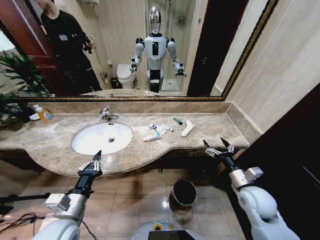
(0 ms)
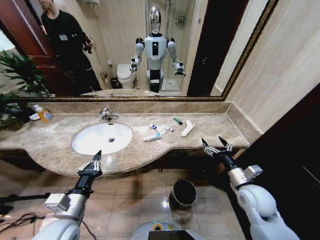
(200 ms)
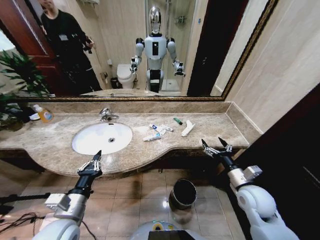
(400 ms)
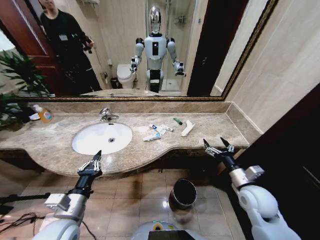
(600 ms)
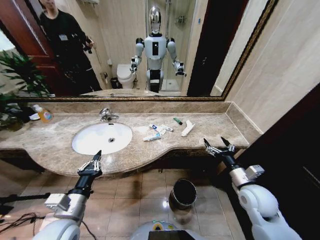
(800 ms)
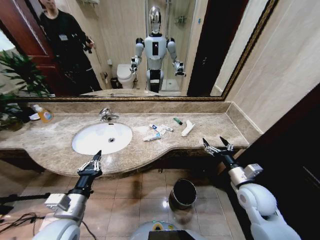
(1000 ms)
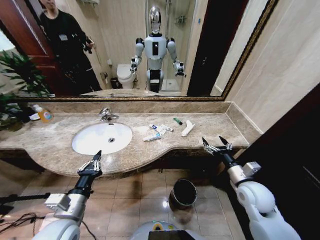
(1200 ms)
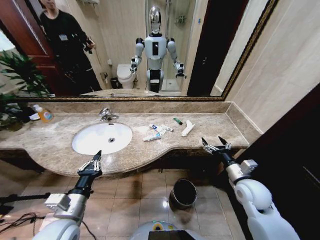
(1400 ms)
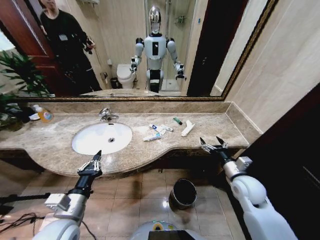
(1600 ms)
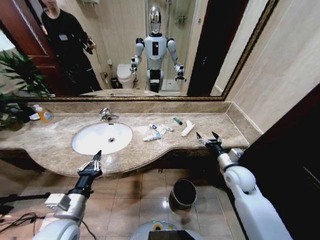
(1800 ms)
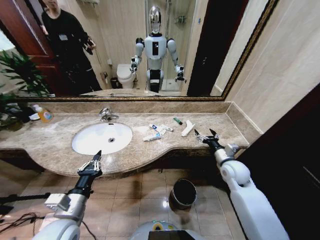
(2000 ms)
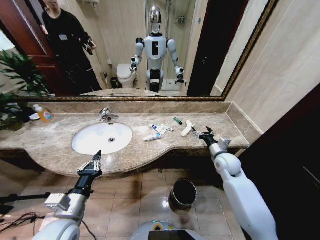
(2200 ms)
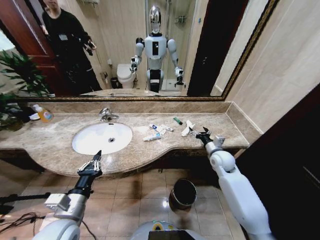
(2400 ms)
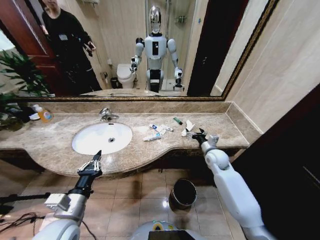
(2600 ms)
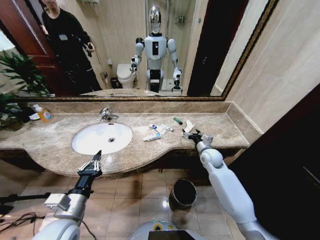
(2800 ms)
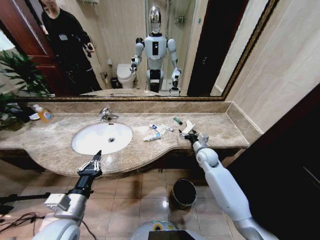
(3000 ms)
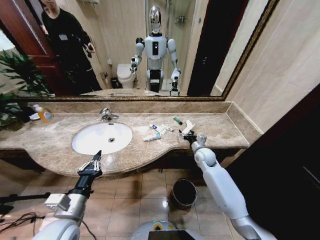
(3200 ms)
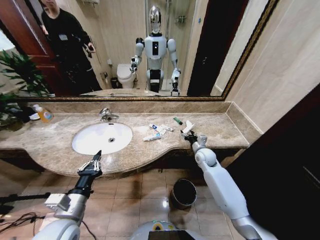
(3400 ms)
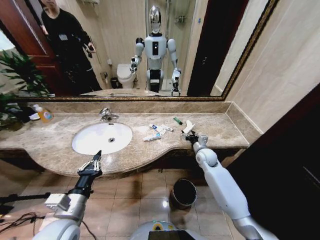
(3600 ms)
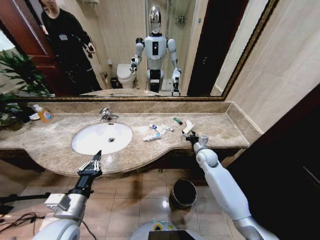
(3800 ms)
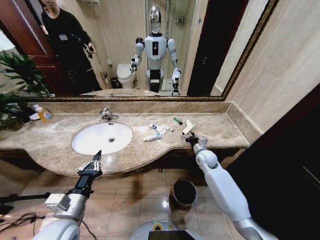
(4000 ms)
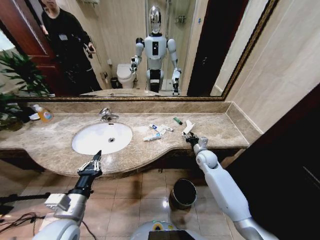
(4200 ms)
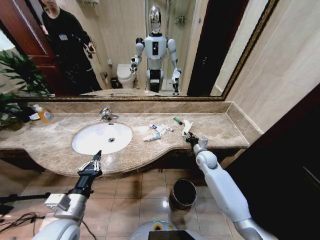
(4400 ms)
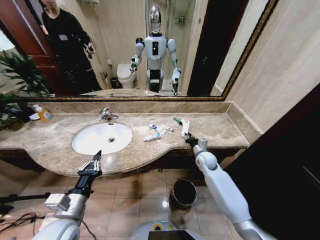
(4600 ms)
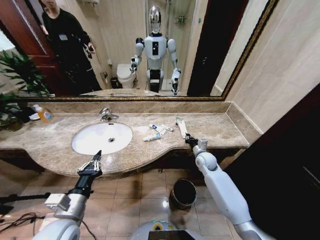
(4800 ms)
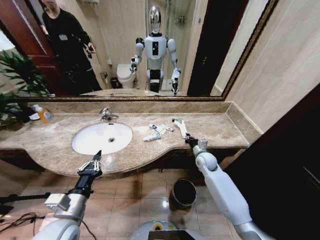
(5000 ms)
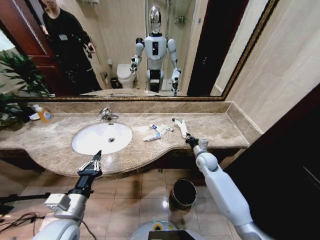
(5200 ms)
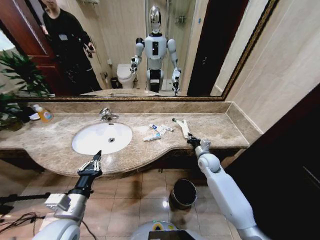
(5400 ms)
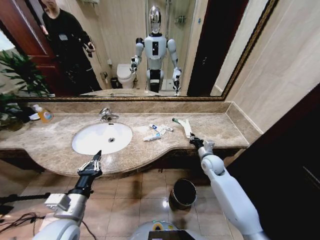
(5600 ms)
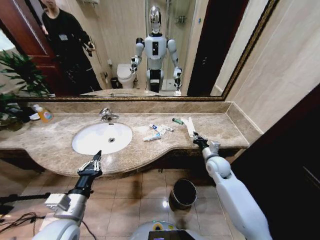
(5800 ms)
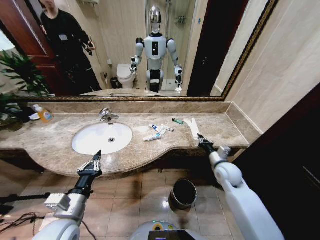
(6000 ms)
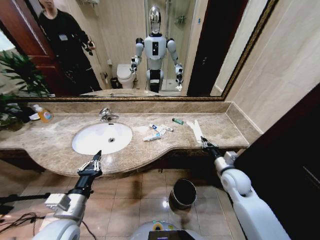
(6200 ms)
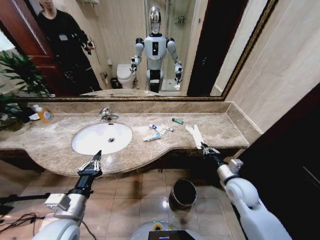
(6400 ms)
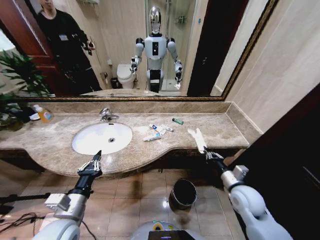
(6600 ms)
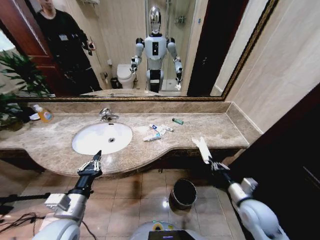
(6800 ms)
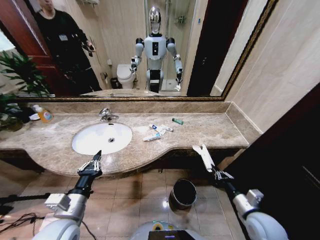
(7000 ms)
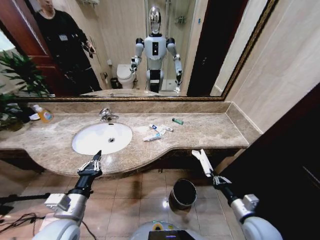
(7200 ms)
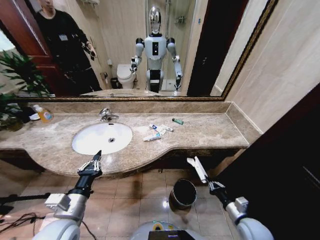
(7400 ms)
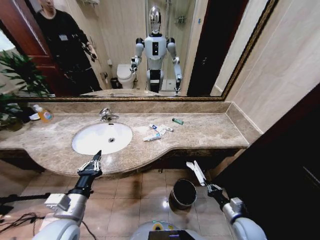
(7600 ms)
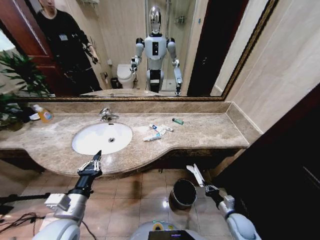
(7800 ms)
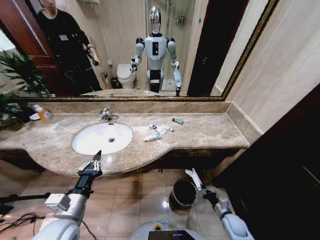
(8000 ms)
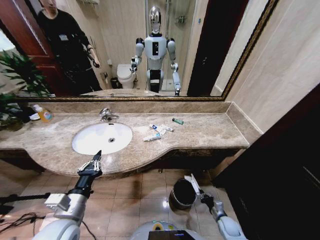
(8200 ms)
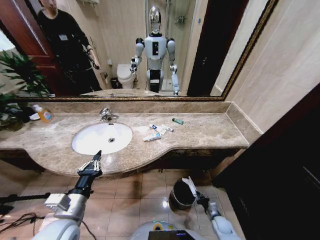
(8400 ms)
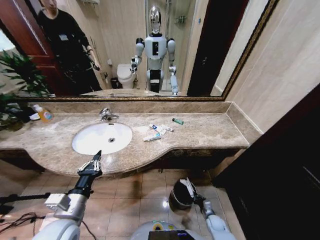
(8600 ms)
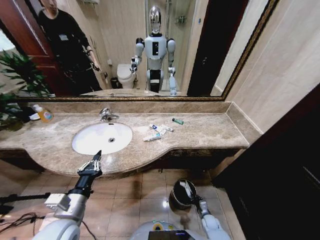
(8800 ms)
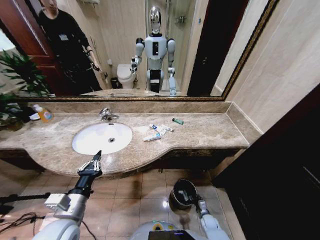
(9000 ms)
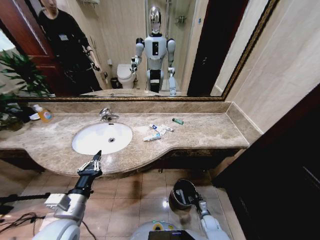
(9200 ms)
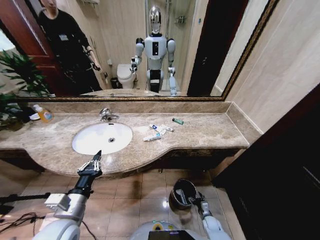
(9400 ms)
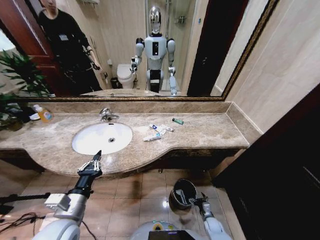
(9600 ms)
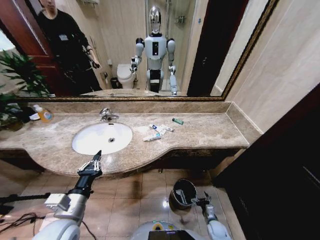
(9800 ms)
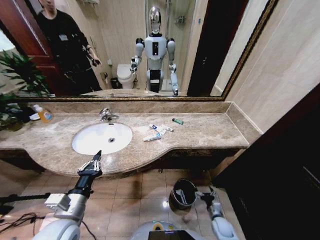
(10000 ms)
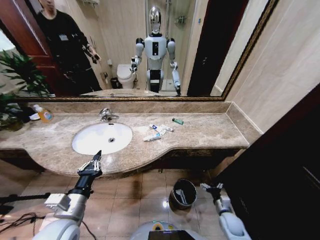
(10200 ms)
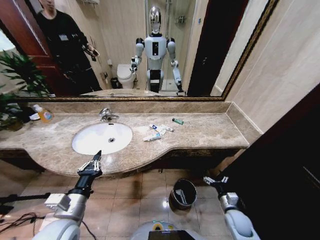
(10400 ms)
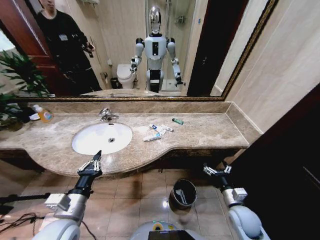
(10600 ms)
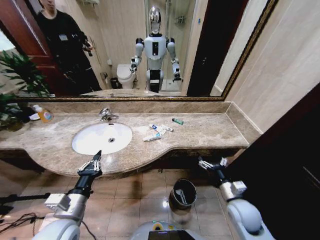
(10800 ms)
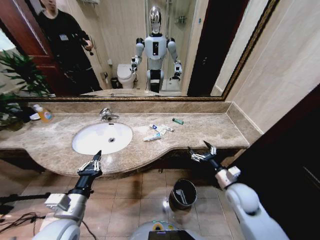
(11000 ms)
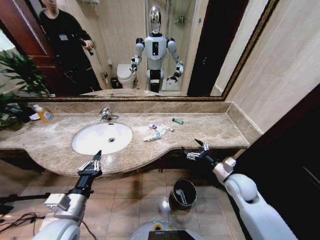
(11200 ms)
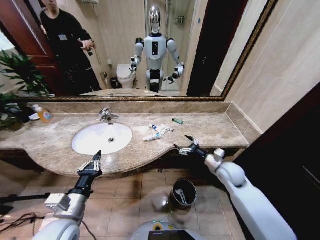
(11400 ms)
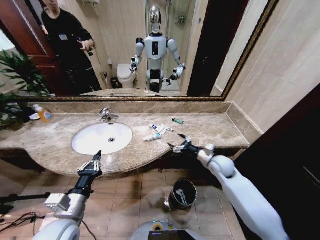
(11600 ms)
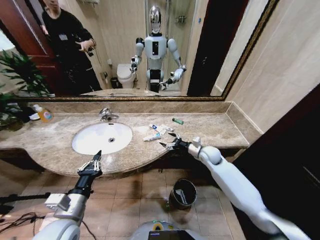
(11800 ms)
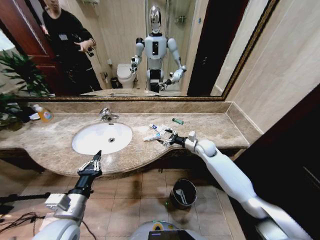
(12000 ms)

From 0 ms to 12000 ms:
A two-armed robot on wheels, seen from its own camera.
Task of the whole recording: Pick up the trash from the sink and place it in the trash bin.
From 1600 ms to 3000 ms: The right gripper heads forward and to the left, covering about 20 cm.
From 3000 ms to 4400 ms: The right gripper closes its fingers.
From 4400 ms to 6000 ms: The right gripper shifts approximately 10 cm backward and to the right, and closes its fingers.
From 6000 ms to 7600 ms: The right gripper shifts about 25 cm backward and downward.
From 7600 ms to 9000 ms: The right gripper is displaced downward by approximately 20 cm.
From 9000 ms to 10400 ms: The right gripper travels upward by roughly 20 cm, and opens its fingers.
From 10400 ms to 12000 ms: The right gripper goes approximately 30 cm forward and upward.

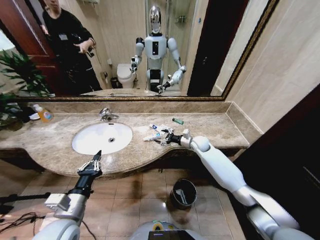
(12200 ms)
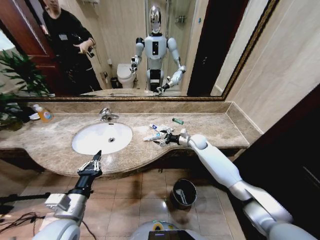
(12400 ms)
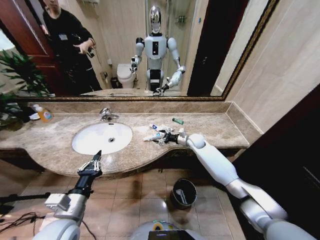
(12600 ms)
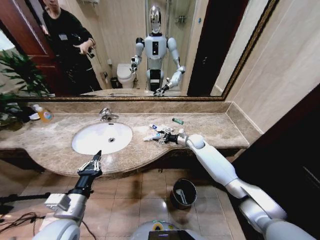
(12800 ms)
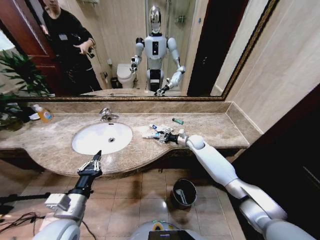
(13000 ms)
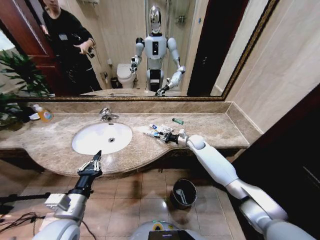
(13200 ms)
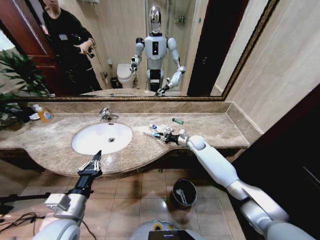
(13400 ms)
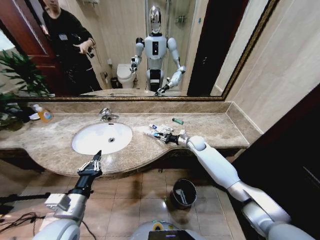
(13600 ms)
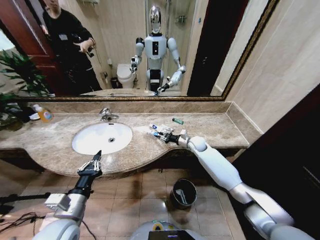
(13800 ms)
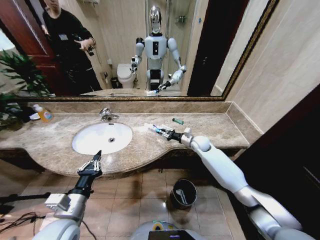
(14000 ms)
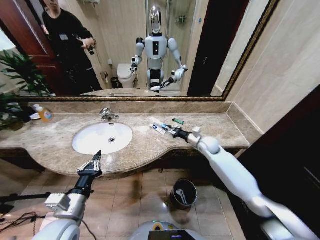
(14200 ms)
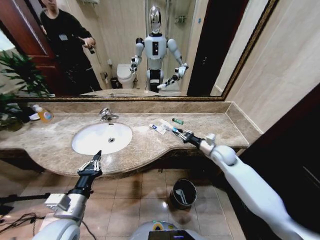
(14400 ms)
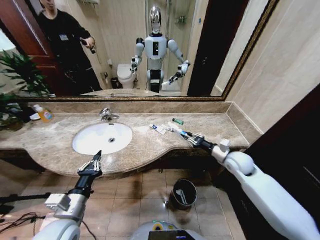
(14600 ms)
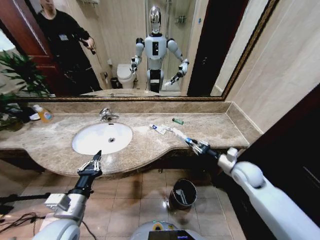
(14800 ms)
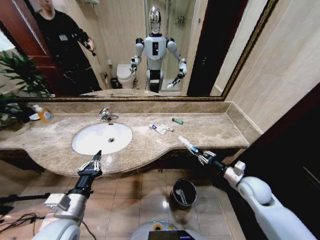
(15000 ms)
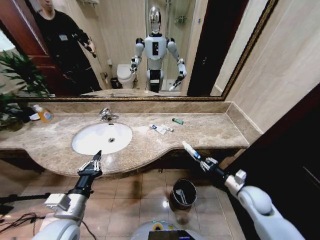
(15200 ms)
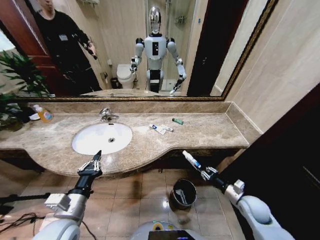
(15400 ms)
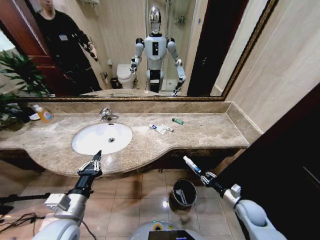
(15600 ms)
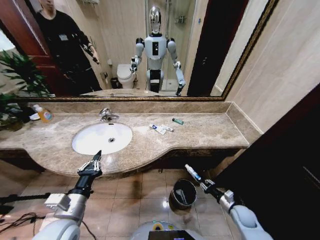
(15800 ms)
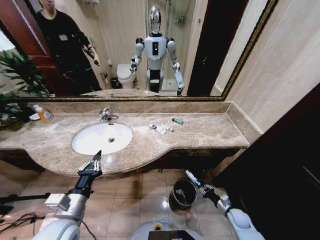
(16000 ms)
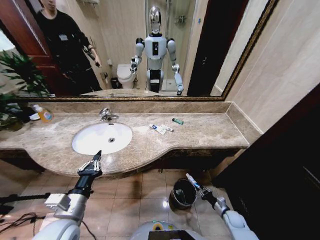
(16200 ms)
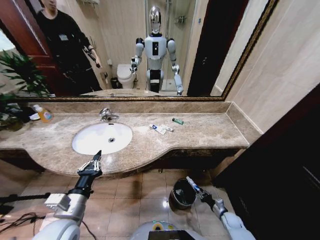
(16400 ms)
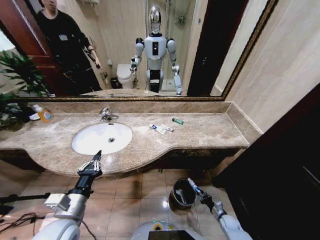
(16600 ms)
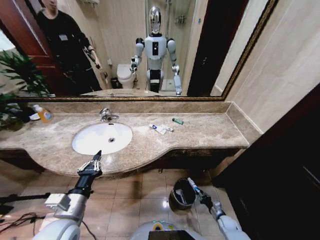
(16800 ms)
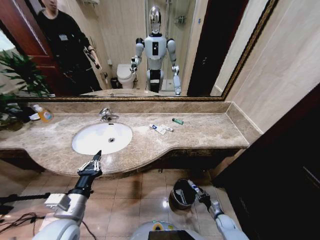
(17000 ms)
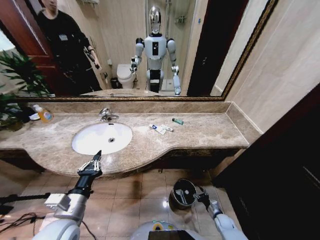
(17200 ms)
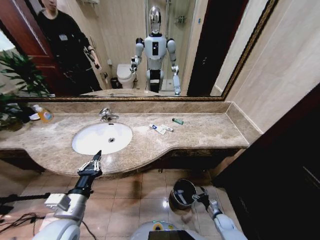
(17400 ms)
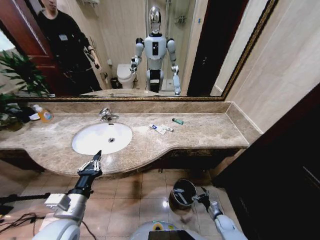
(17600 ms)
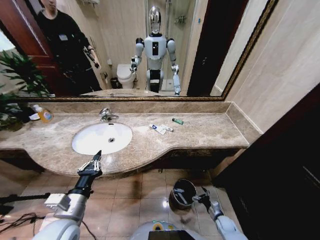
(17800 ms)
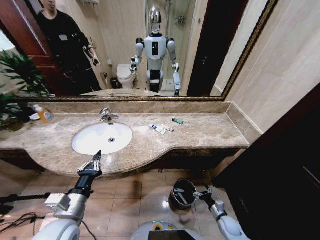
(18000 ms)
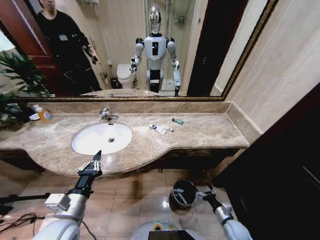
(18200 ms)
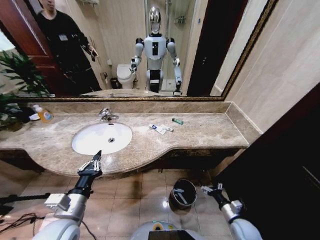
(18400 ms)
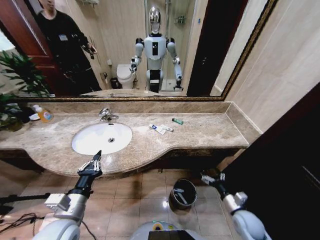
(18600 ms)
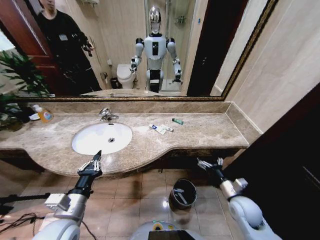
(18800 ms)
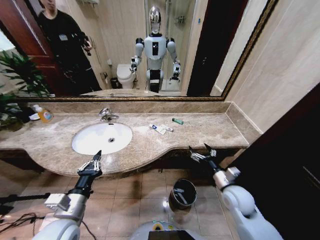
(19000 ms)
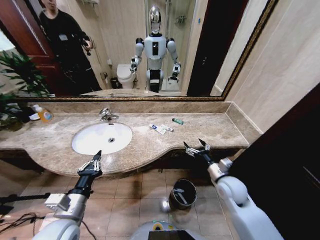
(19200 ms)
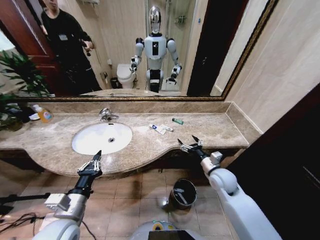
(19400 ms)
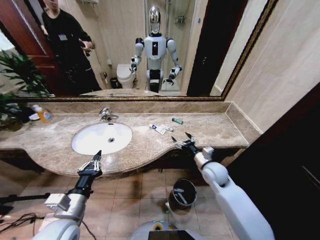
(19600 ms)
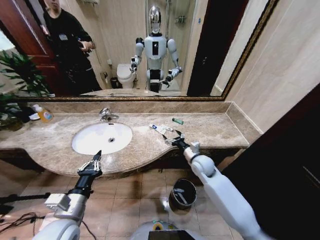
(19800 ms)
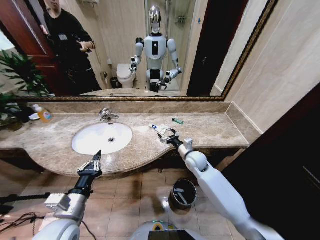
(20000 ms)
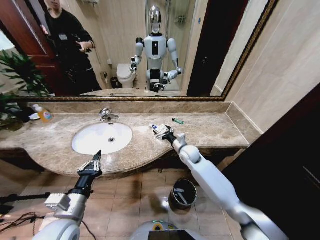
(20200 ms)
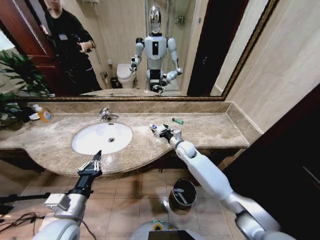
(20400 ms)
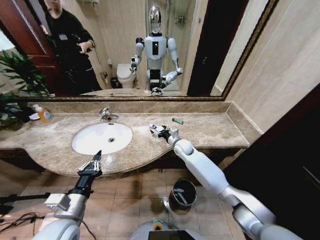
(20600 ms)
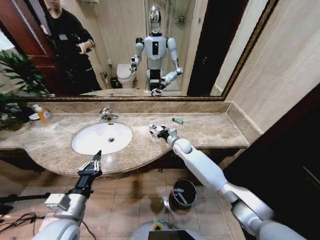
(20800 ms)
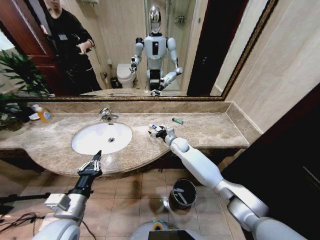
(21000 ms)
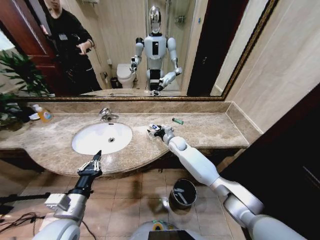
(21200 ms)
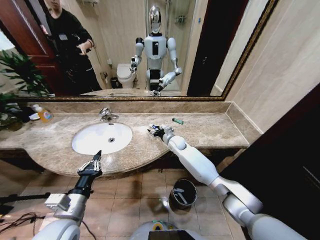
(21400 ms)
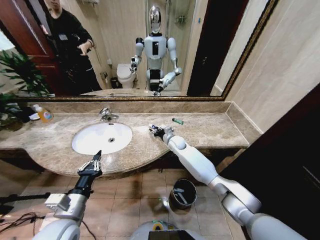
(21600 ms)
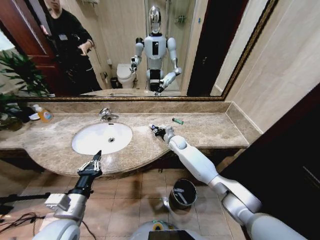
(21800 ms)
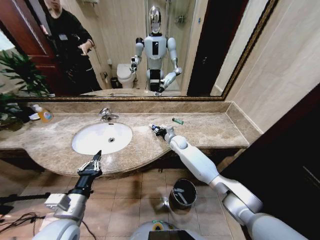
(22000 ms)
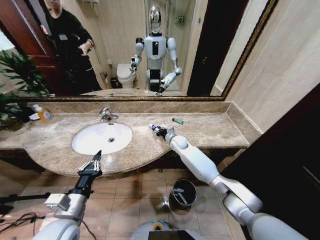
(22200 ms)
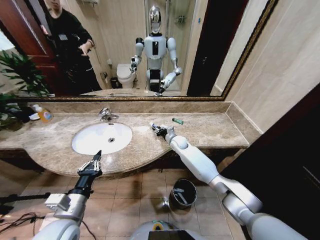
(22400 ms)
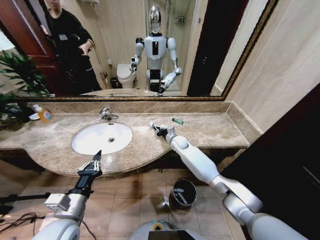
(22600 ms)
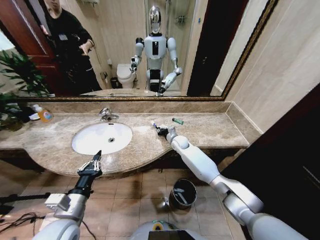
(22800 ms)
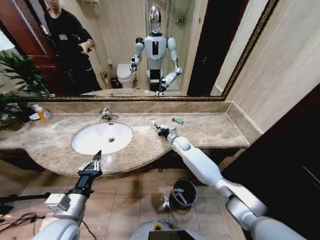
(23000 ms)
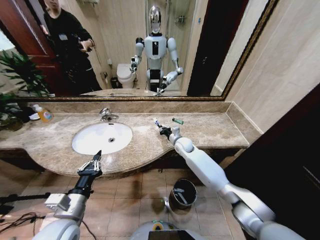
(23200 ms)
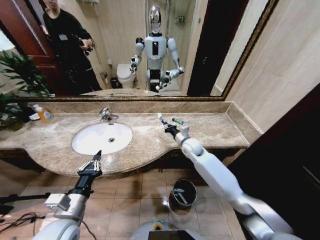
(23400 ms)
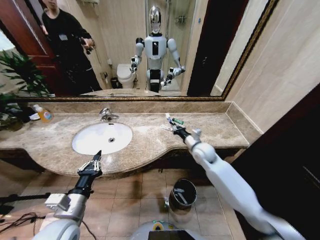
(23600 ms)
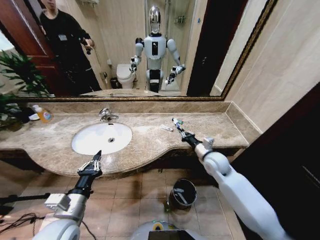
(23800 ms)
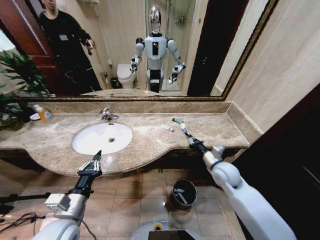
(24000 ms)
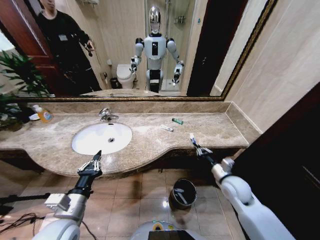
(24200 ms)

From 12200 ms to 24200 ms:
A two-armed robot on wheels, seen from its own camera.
Task of the whole recording: Pick up the trash from the sink and place it in the trash bin.
From 12200 ms to 13800 ms: The right gripper closes up.
From 13800 ms to 15200 ms: The right gripper heads backward and to the right, covering roughly 30 cm.
From 15200 ms to 16600 ms: The right gripper shifts about 30 cm downward.
From 16600 ms to 18200 ms: The right gripper shifts approximately 10 cm upward, and opens up.
From 18200 ms to 19800 ms: The right gripper moves upward, forward and to the left, some 35 cm.
From 19800 ms to 21200 ms: The right gripper travels forward and to the left by approximately 15 cm.
From 21200 ms to 22600 ms: The right gripper closes up.
From 22600 ms to 24200 ms: The right gripper shifts some 30 cm backward and to the right.
